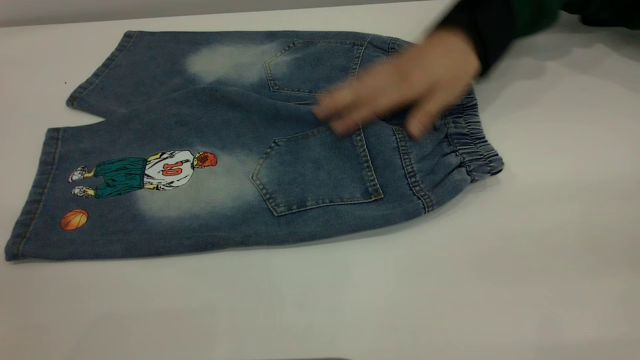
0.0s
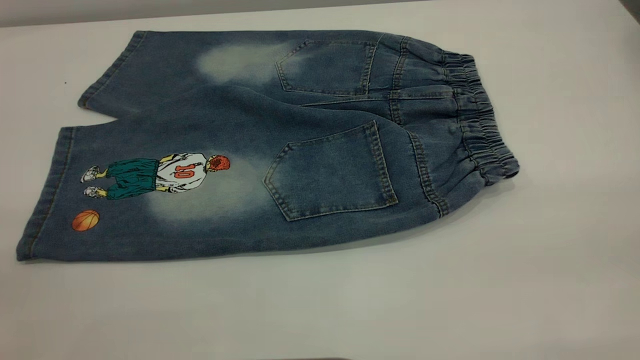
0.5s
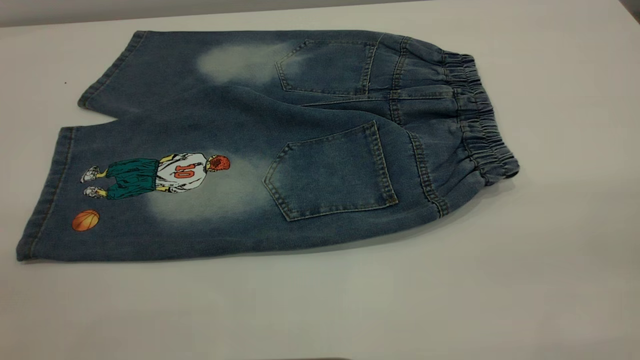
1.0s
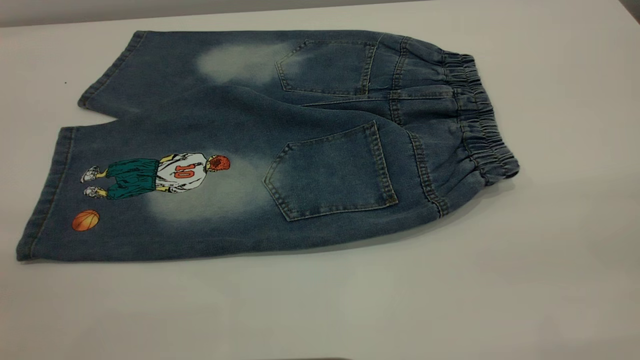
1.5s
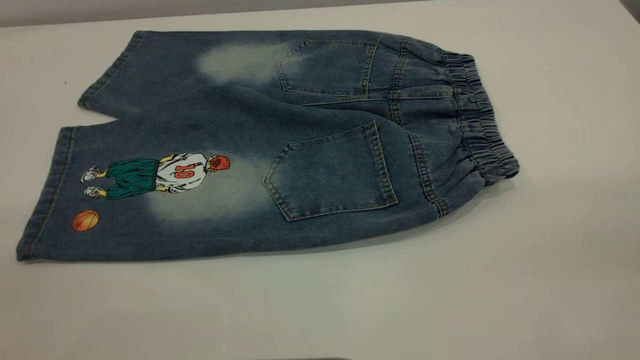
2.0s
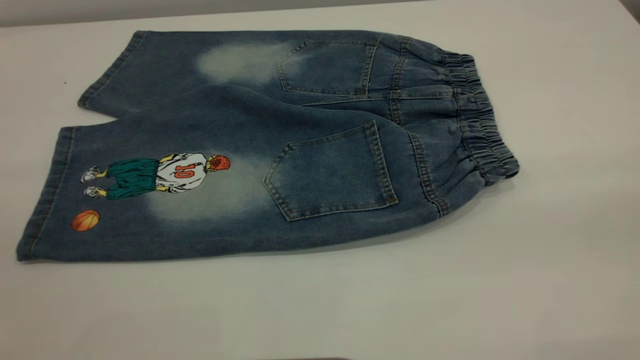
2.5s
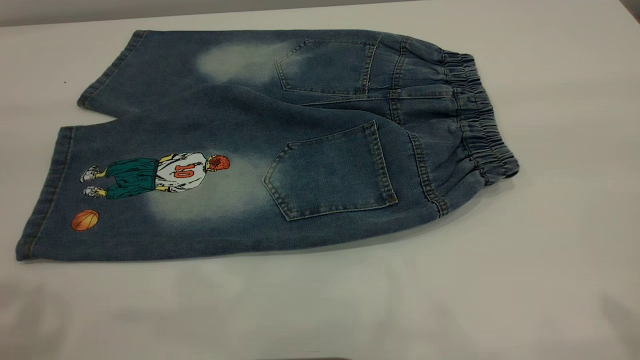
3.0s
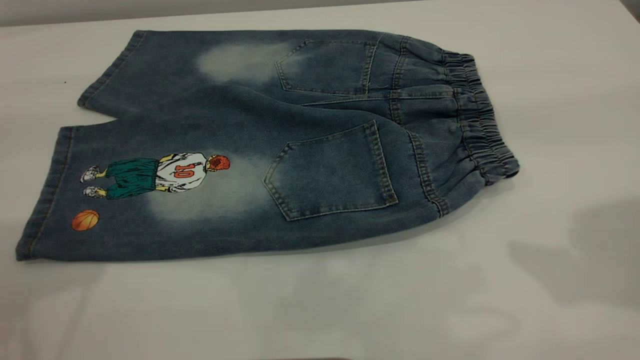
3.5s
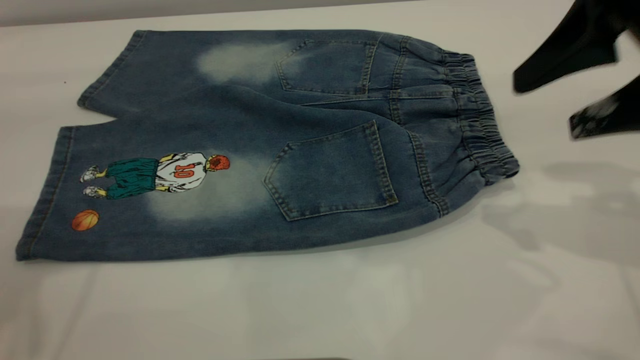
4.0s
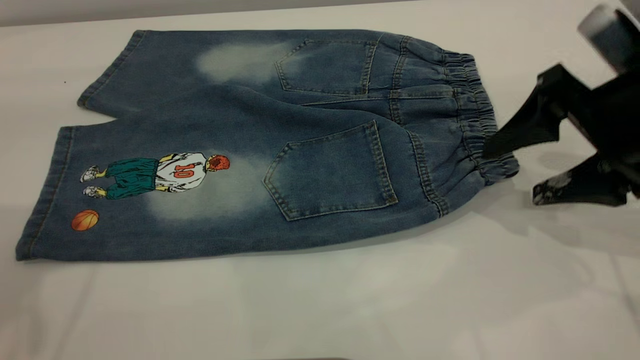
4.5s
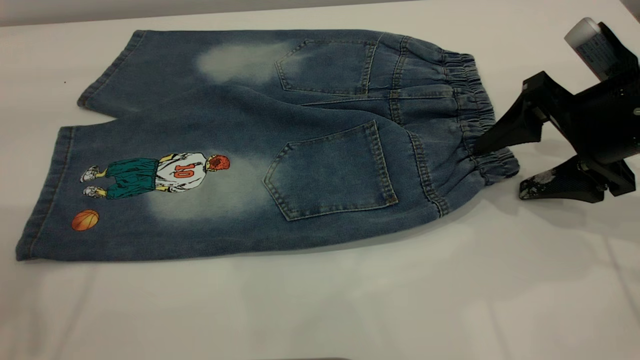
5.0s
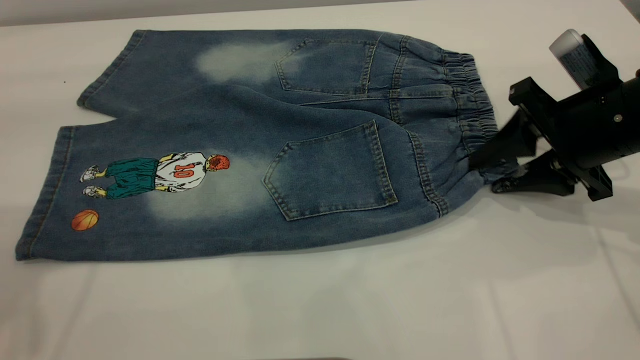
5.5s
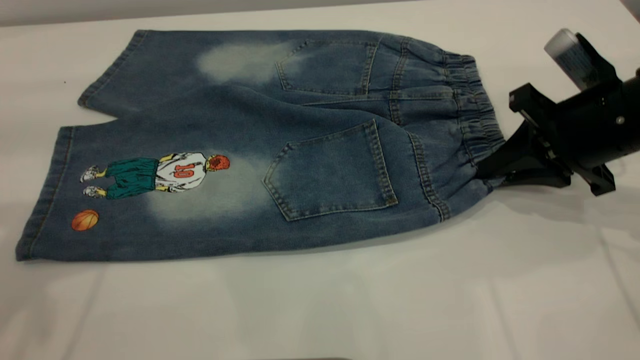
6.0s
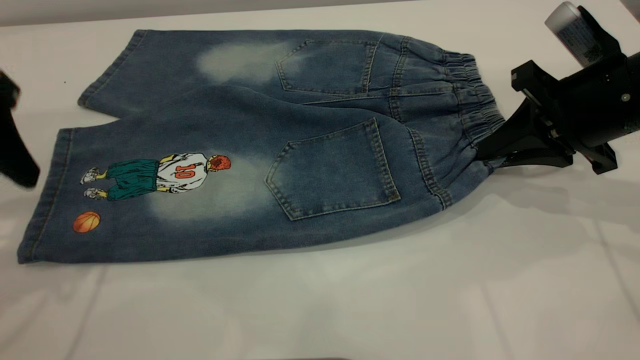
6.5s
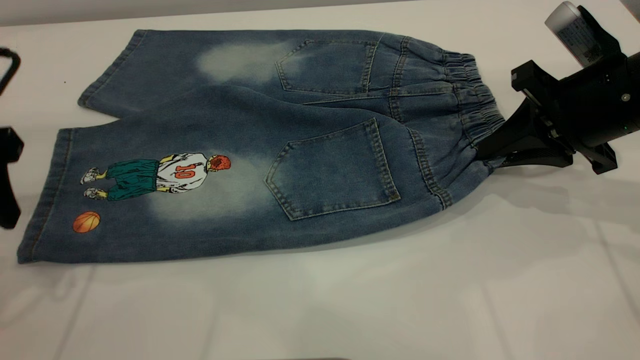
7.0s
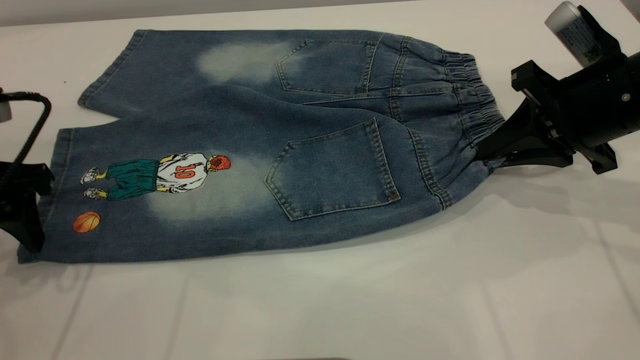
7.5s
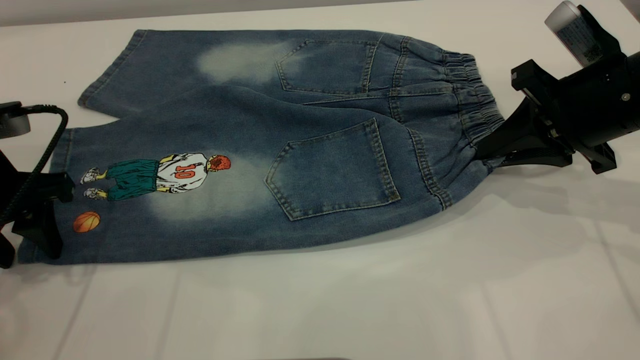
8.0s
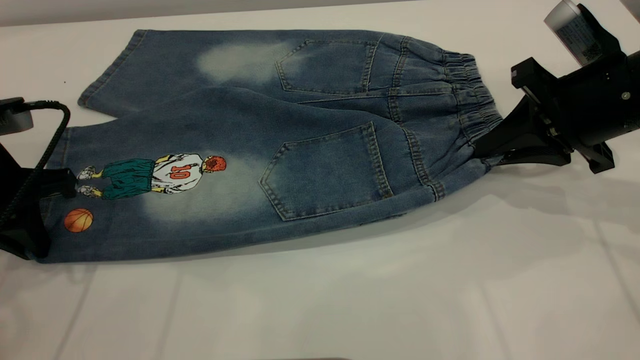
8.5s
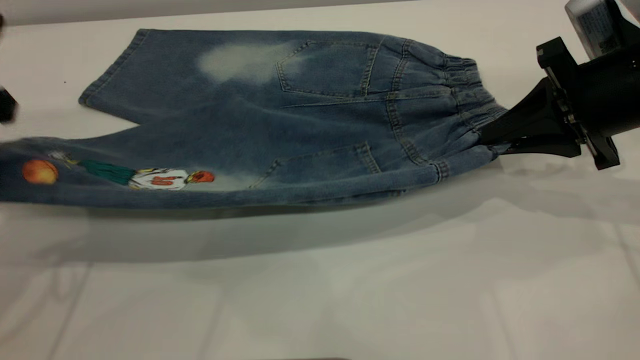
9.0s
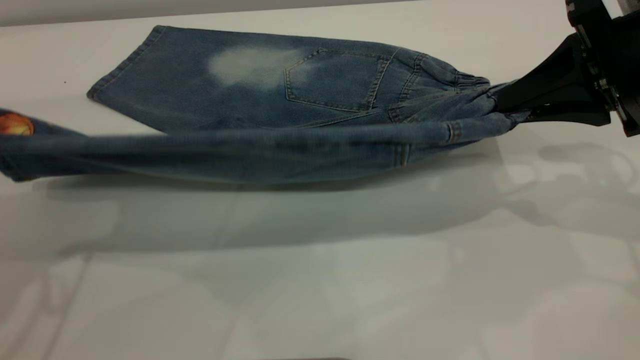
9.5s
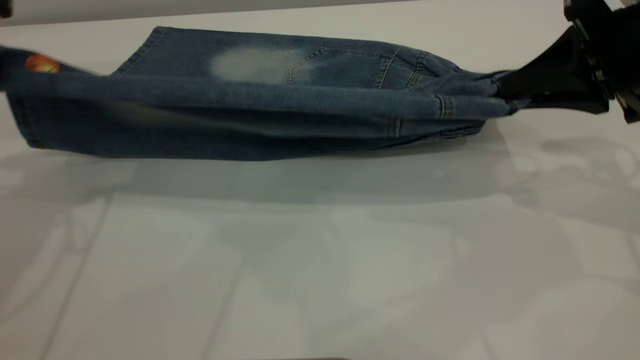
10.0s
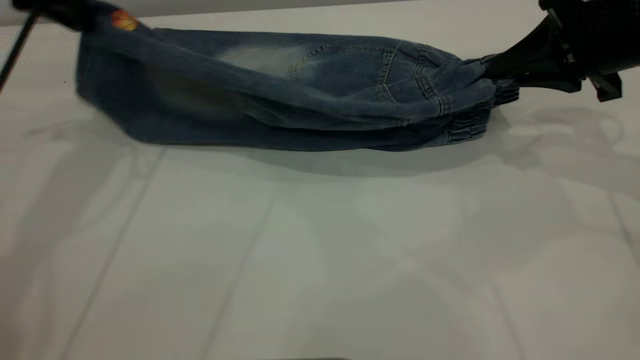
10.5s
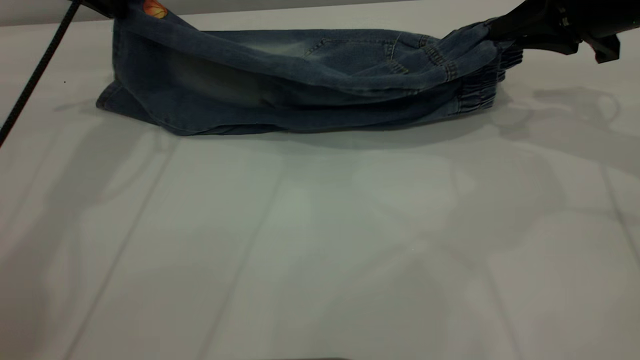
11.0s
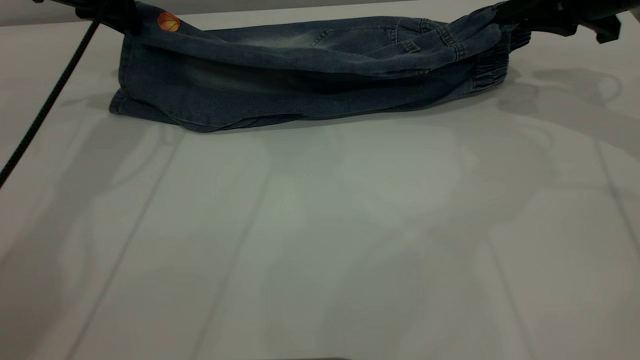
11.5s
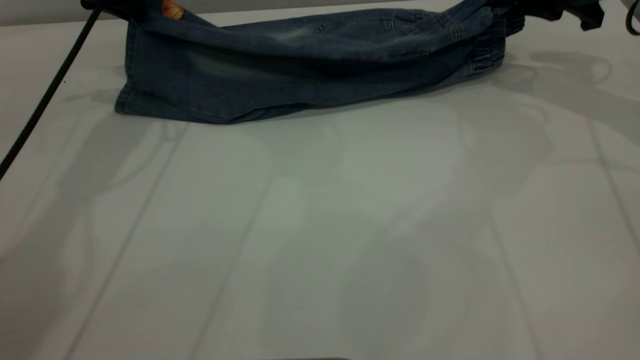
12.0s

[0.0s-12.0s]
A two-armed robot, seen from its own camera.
0.0s to 2.0s: Both grippers stay put.
2.0s to 4.0s: The right gripper shifts some 30 cm forward and downward.
4.0s to 6.0s: The right gripper moves downward, roughly 10 cm, and closes its fingers.
6.0s to 8.0s: The left gripper moves downward, roughly 20 cm.
8.0s to 10.0s: The left gripper moves upward, some 15 cm, and closes up. Meanwhile the right gripper heads upward, covering about 5 cm.
10.0s to 12.0s: The left gripper travels forward and to the right by roughly 15 cm; the right gripper heads forward, covering roughly 15 cm.

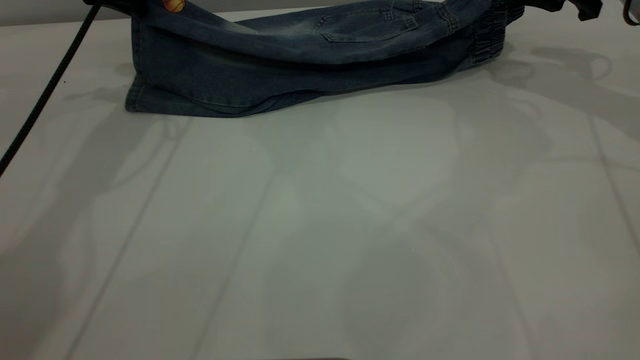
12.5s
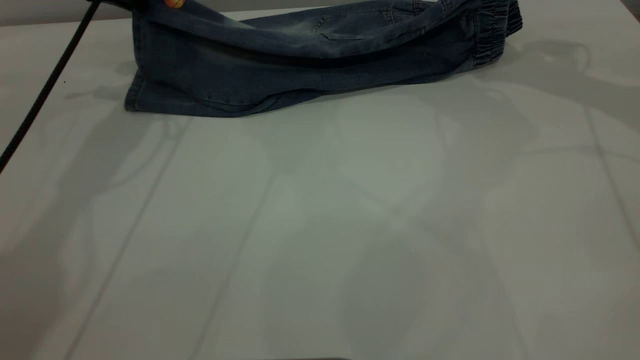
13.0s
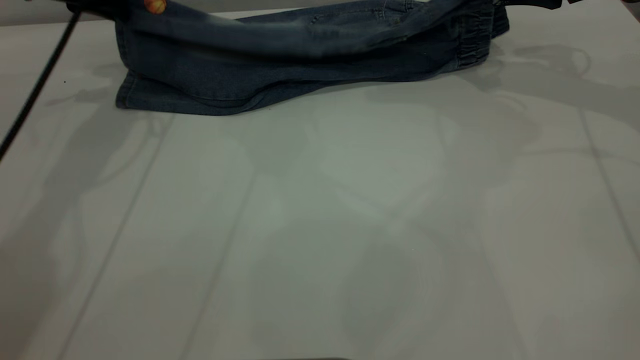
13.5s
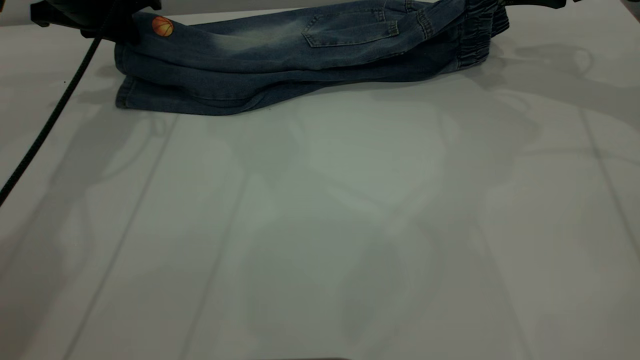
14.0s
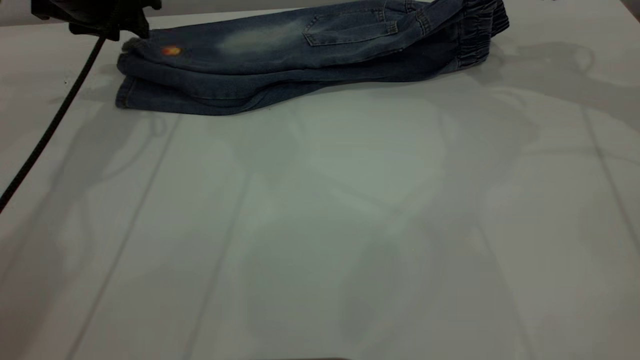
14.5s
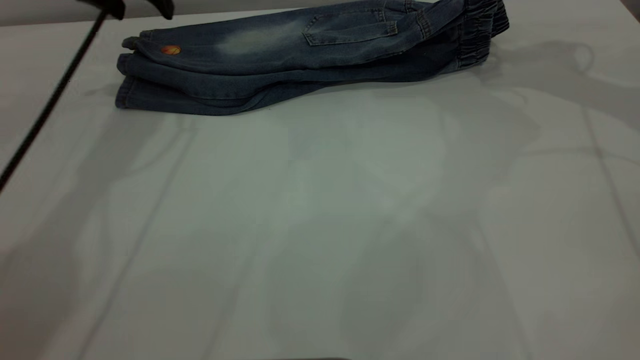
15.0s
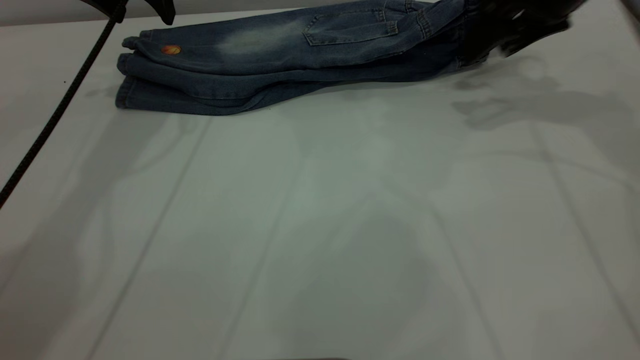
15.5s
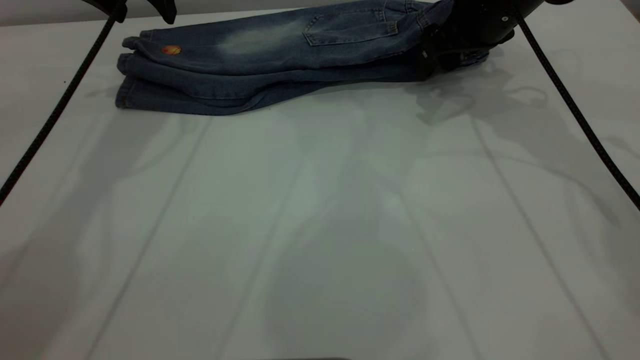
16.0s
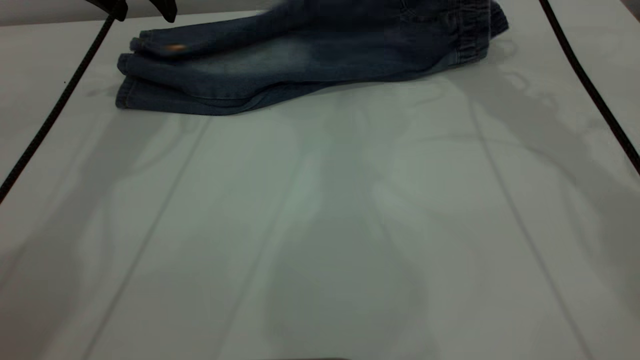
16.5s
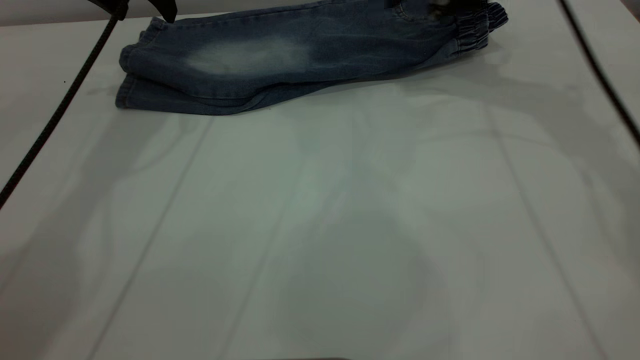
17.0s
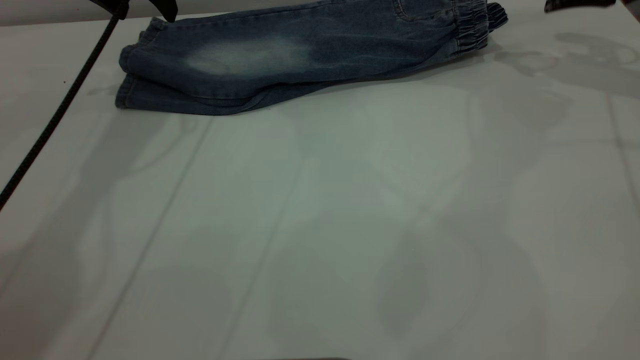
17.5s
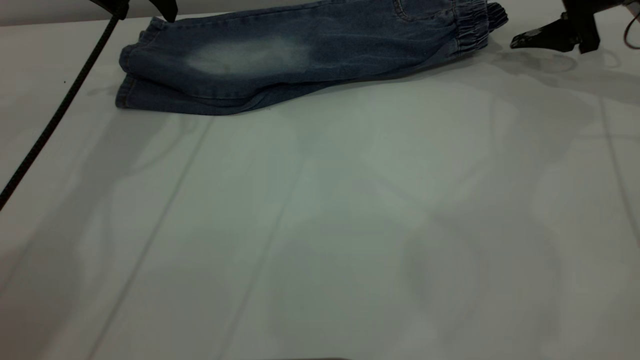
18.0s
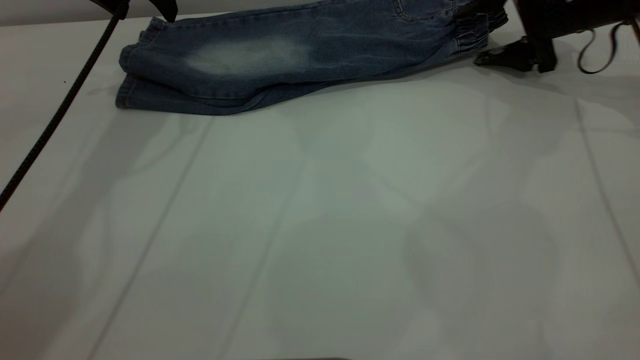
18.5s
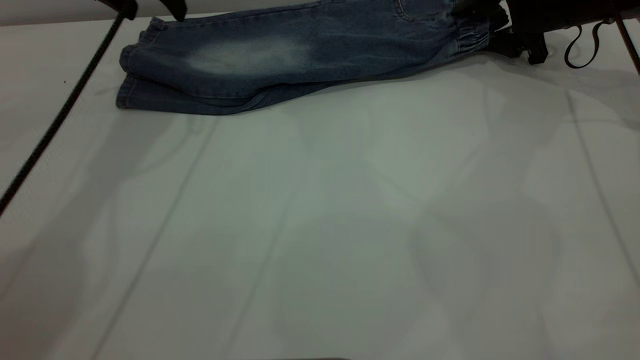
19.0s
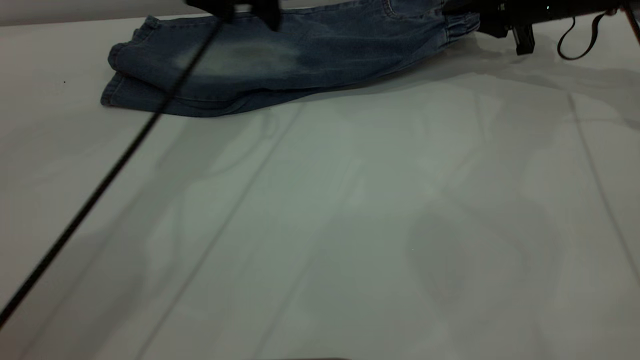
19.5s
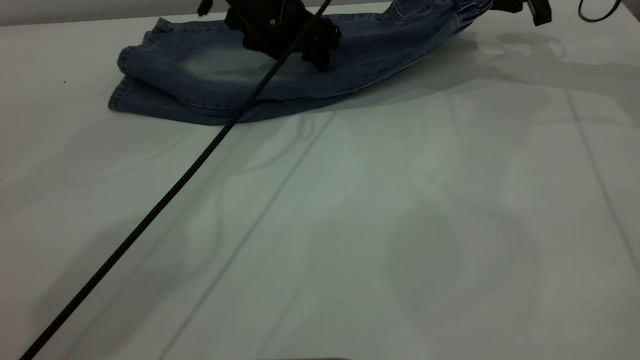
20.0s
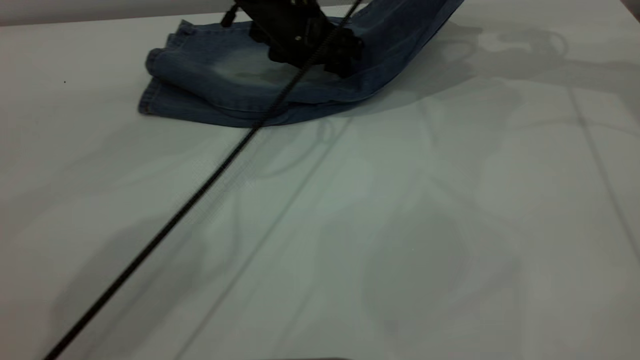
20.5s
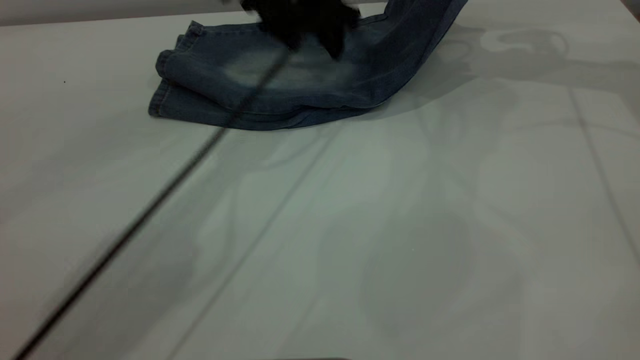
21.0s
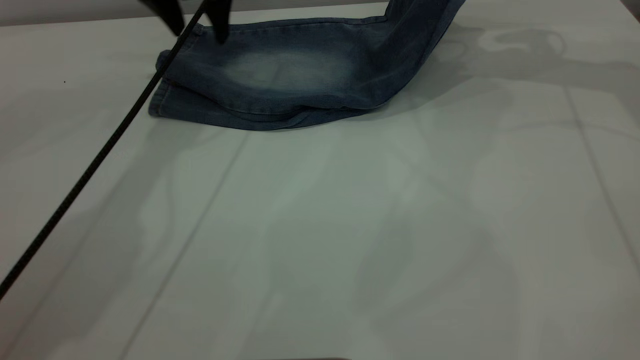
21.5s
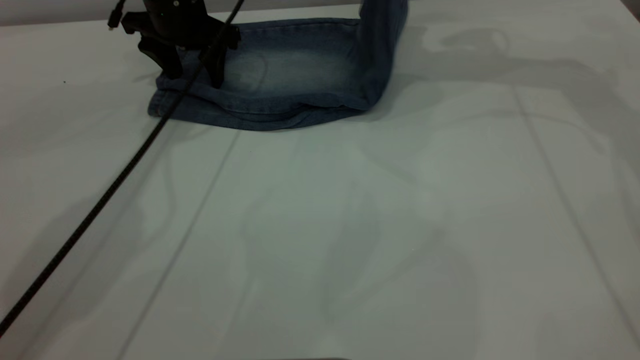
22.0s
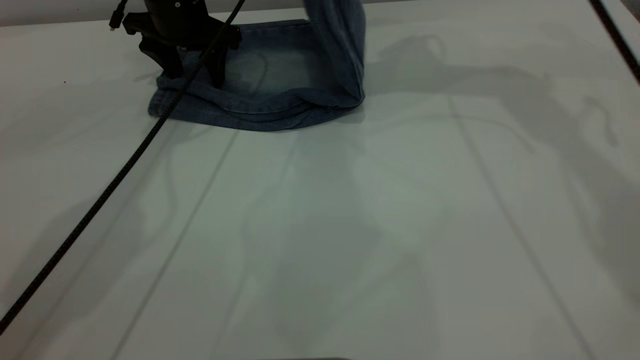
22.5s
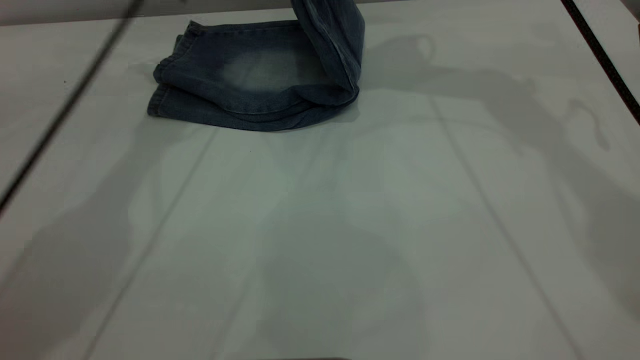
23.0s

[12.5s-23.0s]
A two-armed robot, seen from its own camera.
Step, 12.5s to 15.0s: Fold the bottom of the pants upward.
12.5s to 14.5s: The left gripper opens up. The right gripper opens.
14.5s to 16.5s: The right gripper moves to the left, roughly 10 cm; the left gripper goes some 5 cm upward.
16.5s to 19.0s: The right gripper moves to the right and downward, some 15 cm, and closes up.
19.0s to 21.0s: The left gripper travels to the right by about 15 cm. Meanwhile the right gripper shifts roughly 15 cm upward, and closes.
21.0s to 23.0s: The right gripper moves to the left, roughly 15 cm. Meanwhile the left gripper travels to the left and upward by roughly 15 cm.
